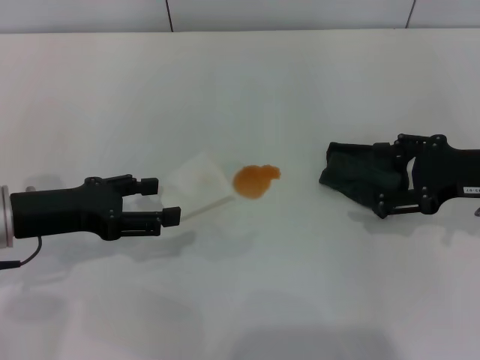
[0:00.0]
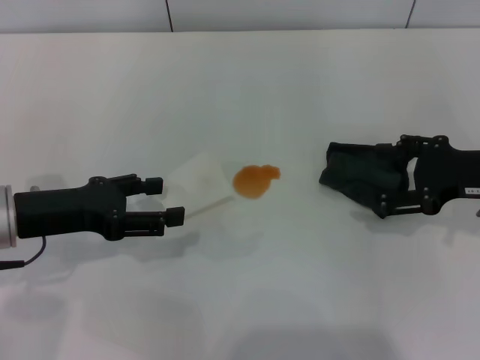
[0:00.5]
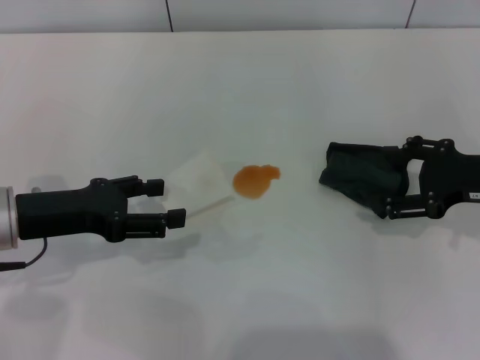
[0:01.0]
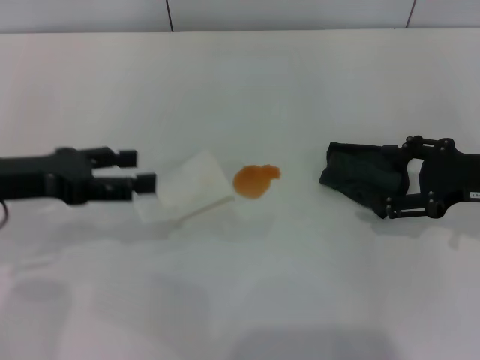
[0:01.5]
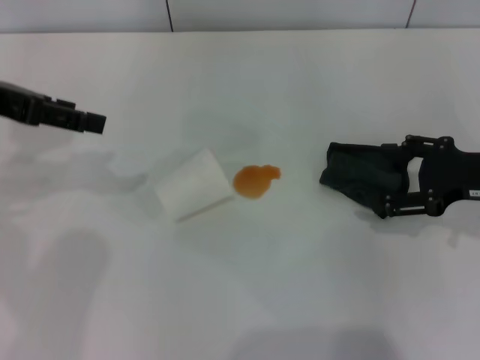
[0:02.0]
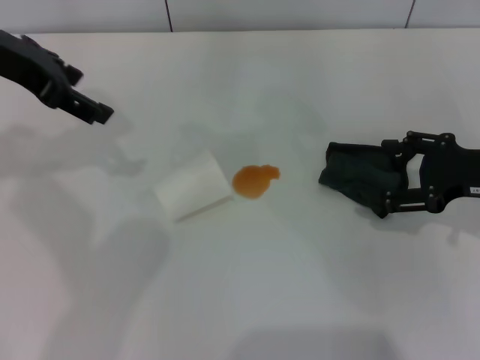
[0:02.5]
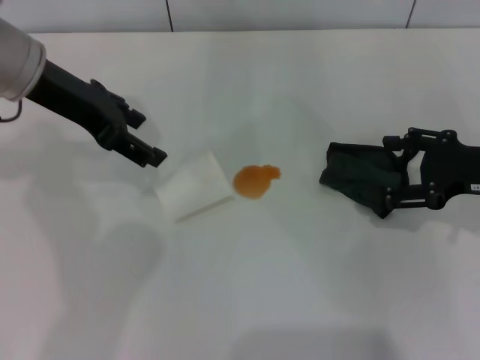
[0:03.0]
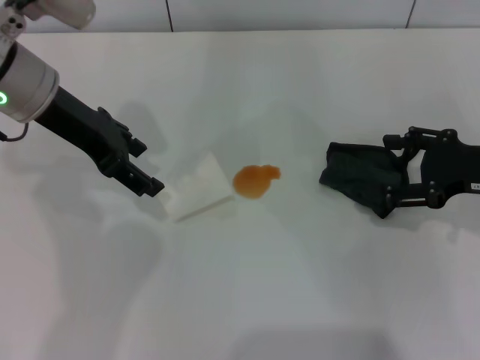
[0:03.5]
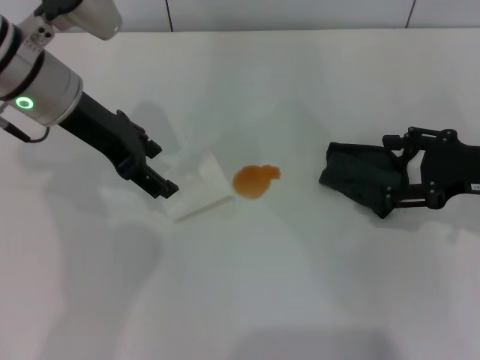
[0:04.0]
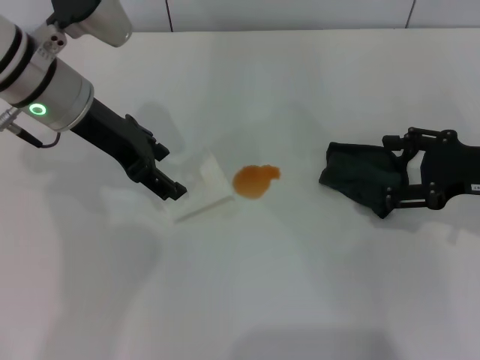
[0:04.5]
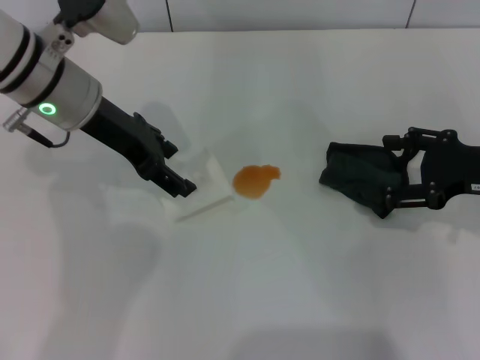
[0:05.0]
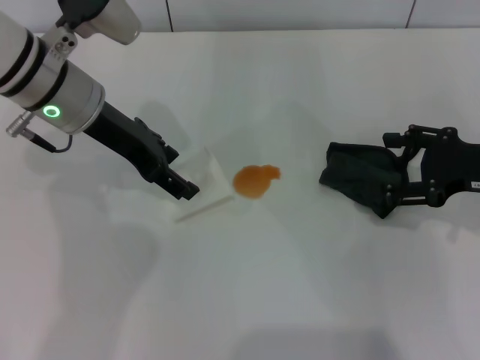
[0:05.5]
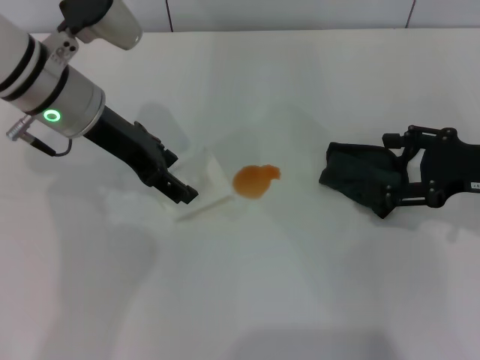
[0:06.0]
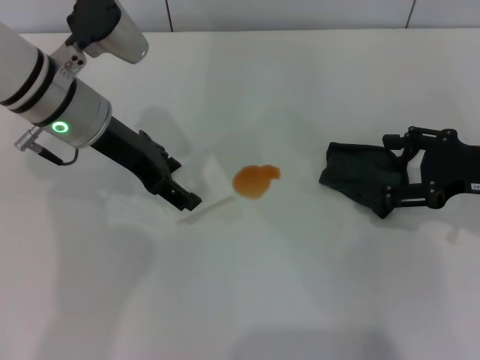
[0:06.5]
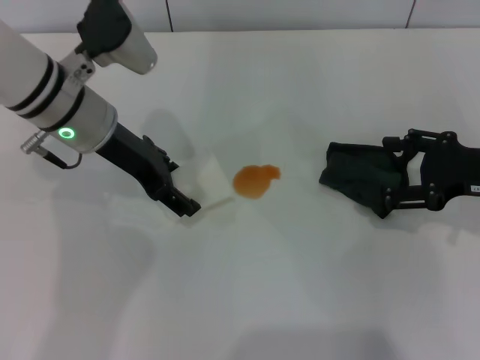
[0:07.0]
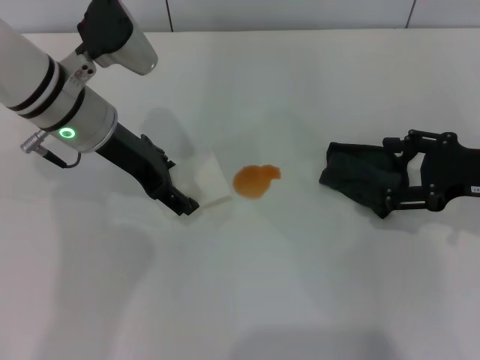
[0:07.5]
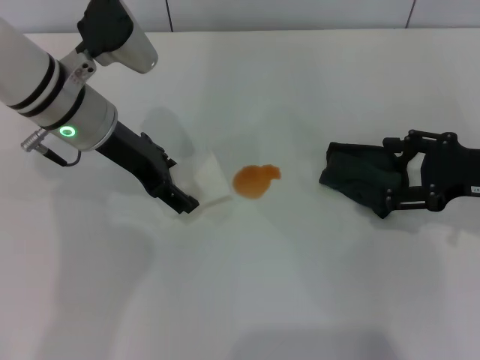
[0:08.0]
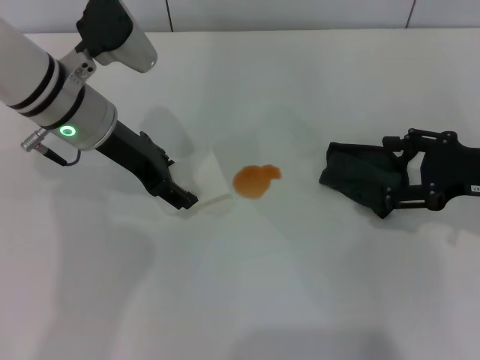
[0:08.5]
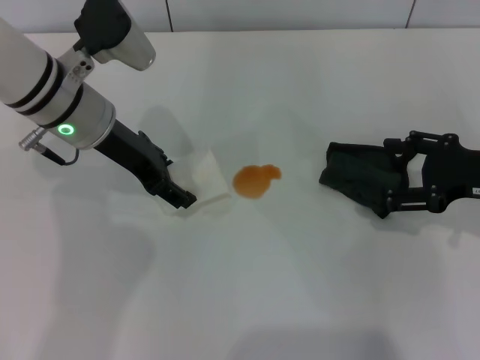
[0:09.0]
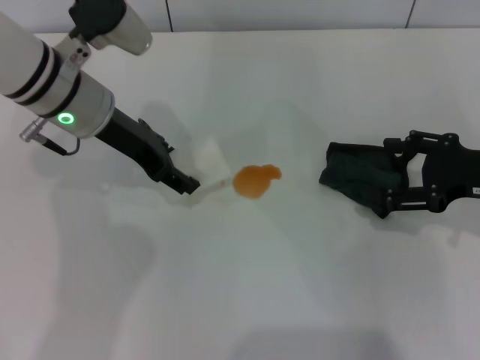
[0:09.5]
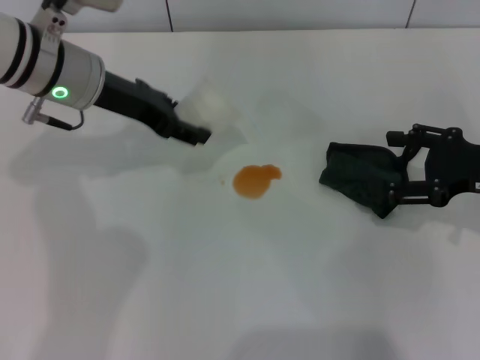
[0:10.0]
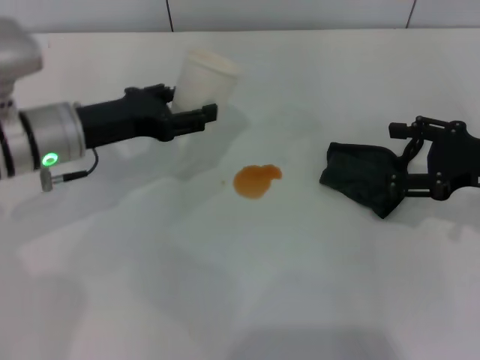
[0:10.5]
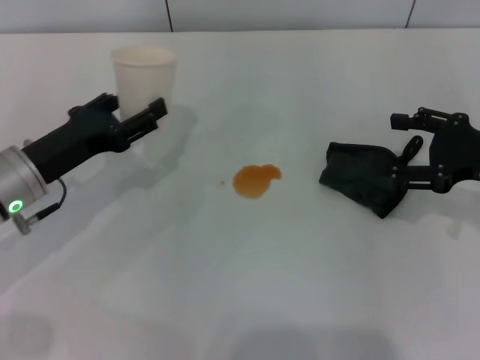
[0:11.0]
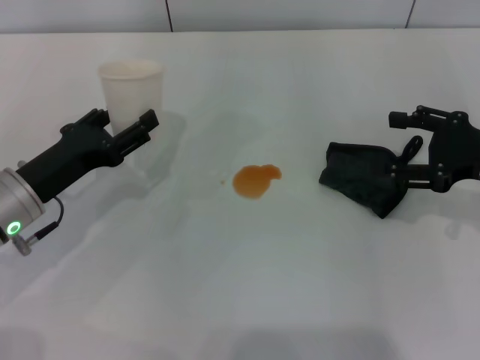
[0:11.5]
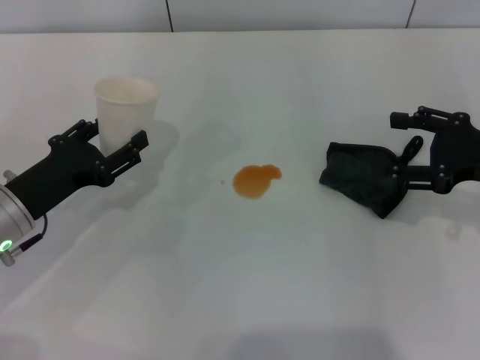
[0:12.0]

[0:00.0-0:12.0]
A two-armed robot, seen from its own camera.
Step, 0:00.0 to 0:08.5: Grasp the paper cup with the left gripper.
0:00.0 to 0:02.0: The left gripper goes roughly 15 cm upward and forward.
0:02.0 to 0:04.0: The left gripper goes about 10 cm to the right.
0:04.0 to 0:08.0: There are only small adjustments of the grippers.
0:08.0 to 0:10.0: The left gripper closes its fingers.
0:10.0 to 0:12.0: The left gripper is displaced backward, downward and to the left by about 20 cm.

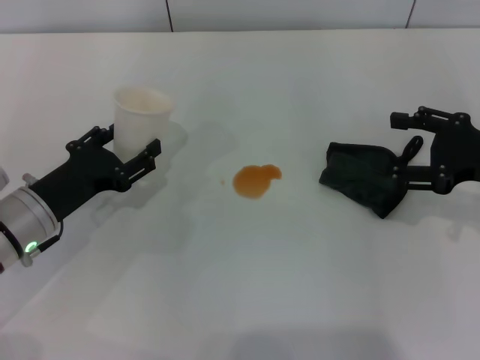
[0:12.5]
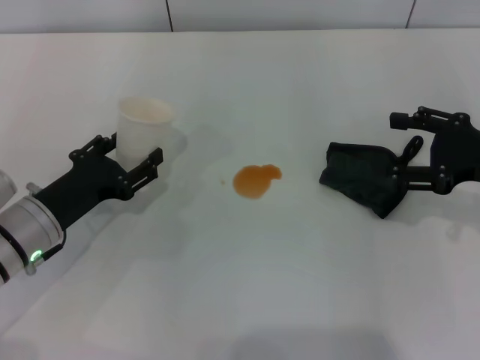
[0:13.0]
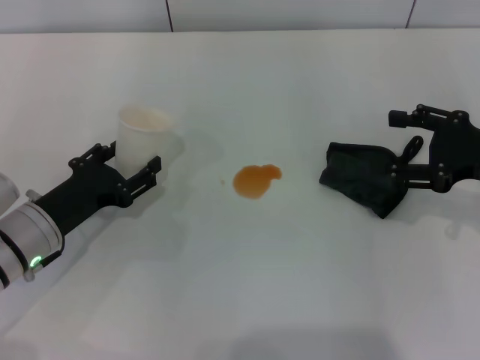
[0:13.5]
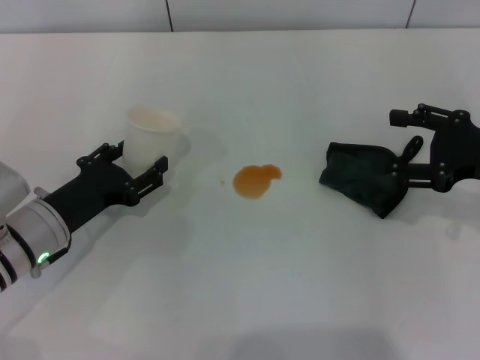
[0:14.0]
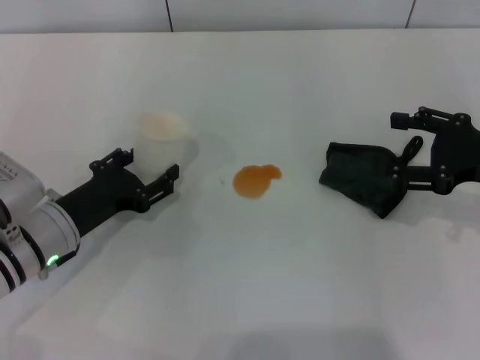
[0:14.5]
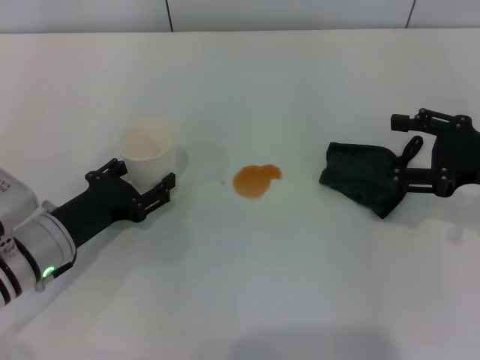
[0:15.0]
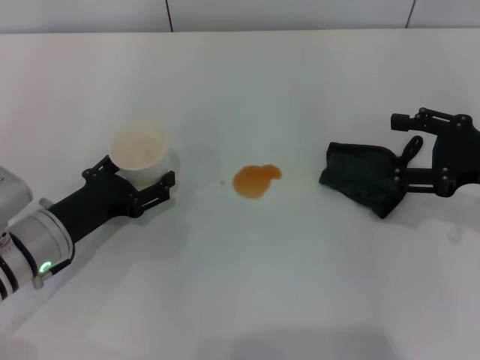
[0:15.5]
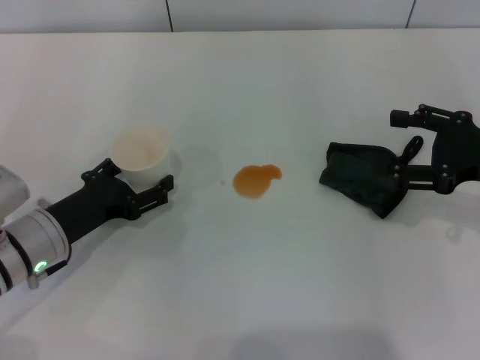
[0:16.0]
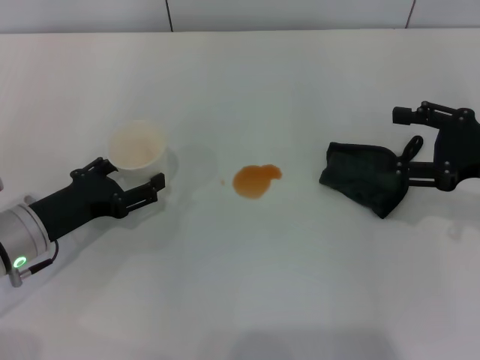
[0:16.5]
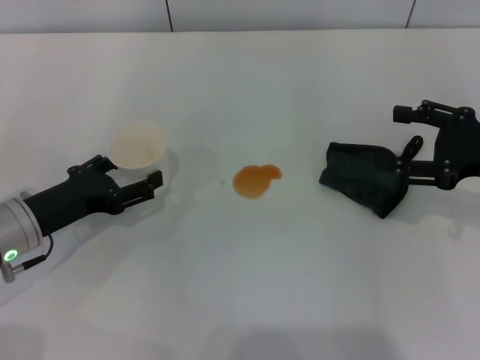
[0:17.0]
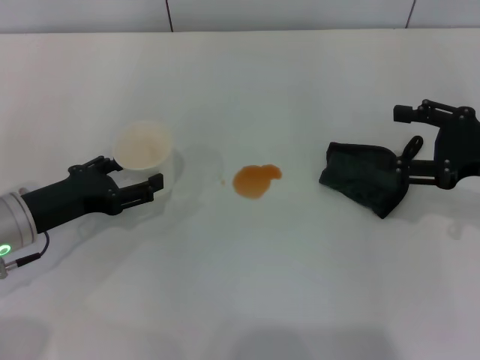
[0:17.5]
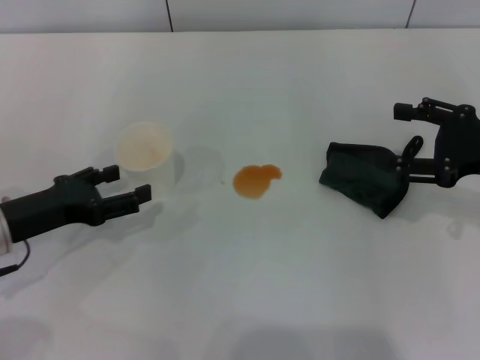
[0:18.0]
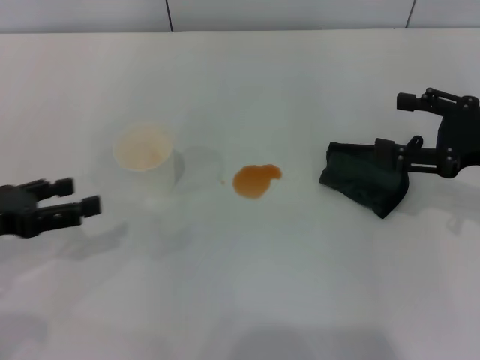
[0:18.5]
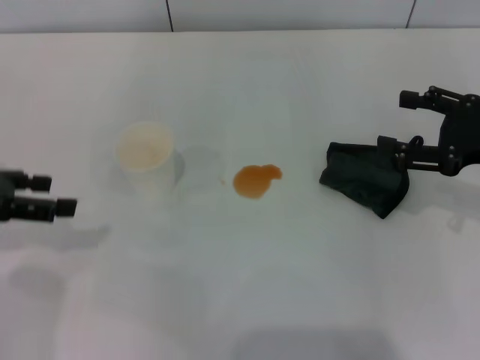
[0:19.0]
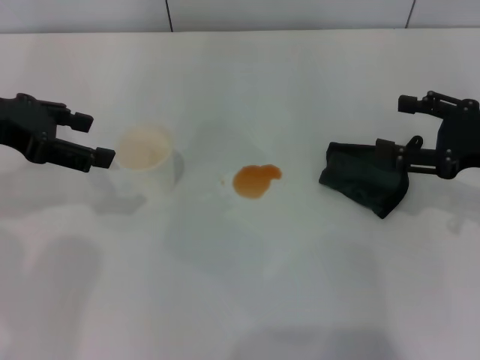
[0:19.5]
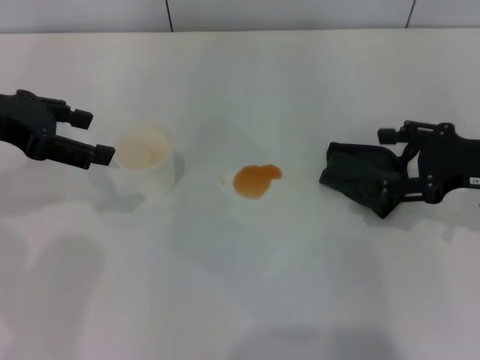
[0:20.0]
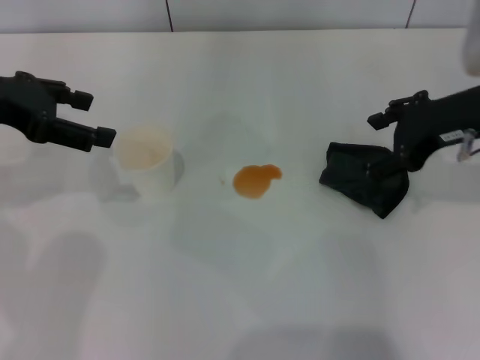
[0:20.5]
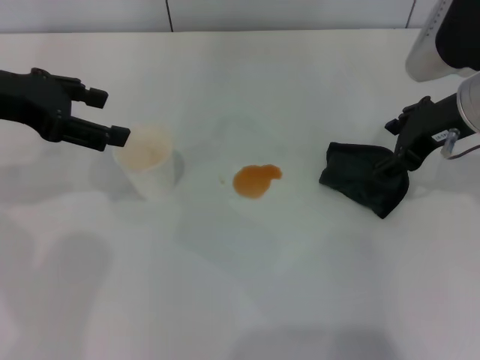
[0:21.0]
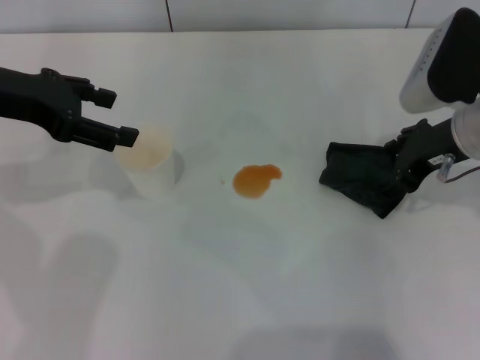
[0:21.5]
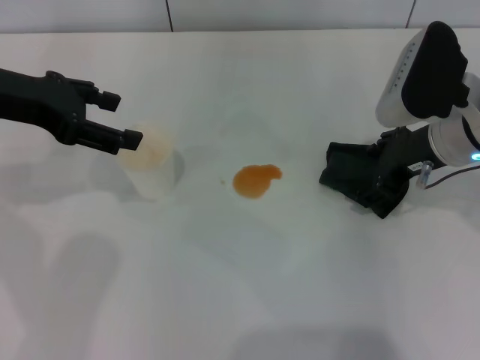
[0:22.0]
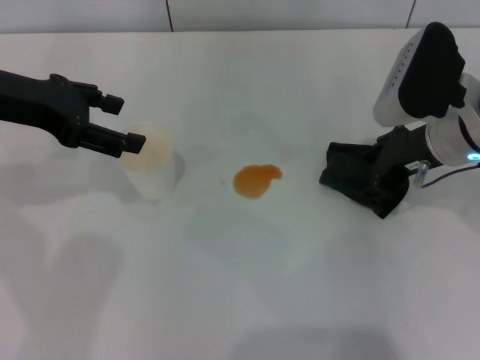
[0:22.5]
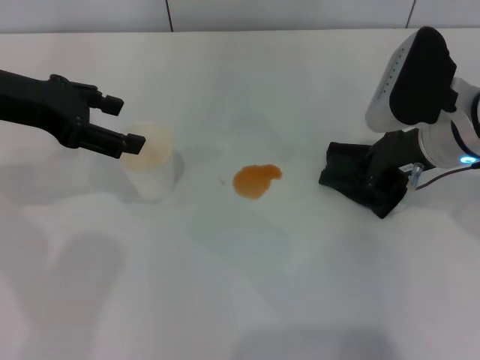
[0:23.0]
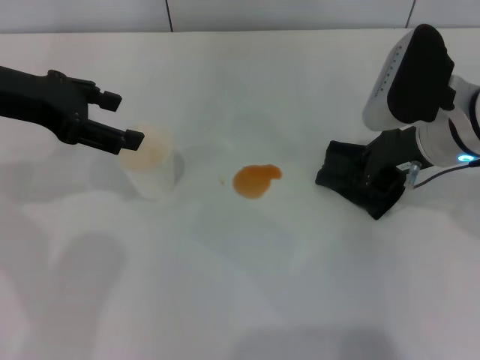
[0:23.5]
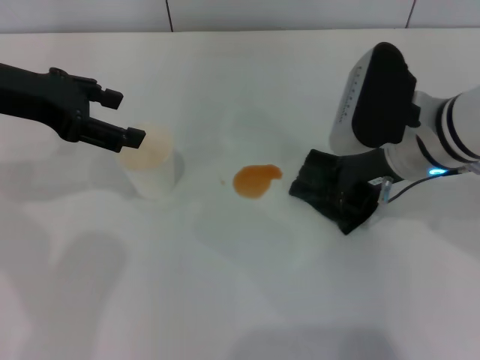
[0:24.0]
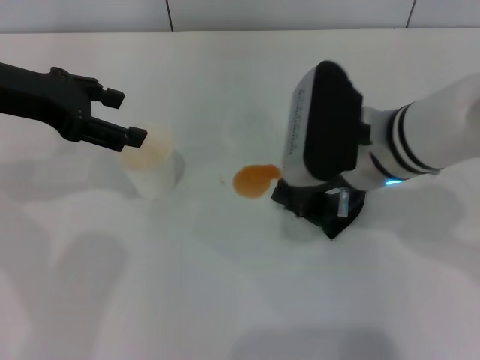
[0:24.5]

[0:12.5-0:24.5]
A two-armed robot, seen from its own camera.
Step, 0:12.5 to 0:18.0: Stand the paper cup upright with the left gripper.
Step, 0:18.5 to 0:23.5: Grasp the rag with the right gripper.
0:12.5 to 0:14.5: The grippers make only small movements.
0:14.5 to 0:16.5: The left gripper opens.
0:16.5 to 0:18.5: The left gripper heads upward and to the left, covering roughly 10 cm.
0:18.5 to 0:20.5: The right gripper heads to the left and upward, covering roughly 10 cm; the left gripper heads upward and forward, covering approximately 15 cm.
0:20.5 to 0:22.5: The right gripper heads downward, covering some 5 cm.
0:22.5 to 0:24.5: The right gripper is displaced to the left by some 10 cm, and closes.

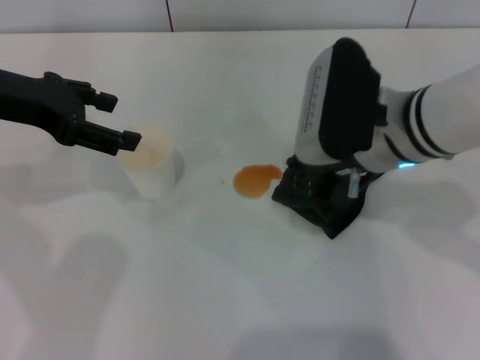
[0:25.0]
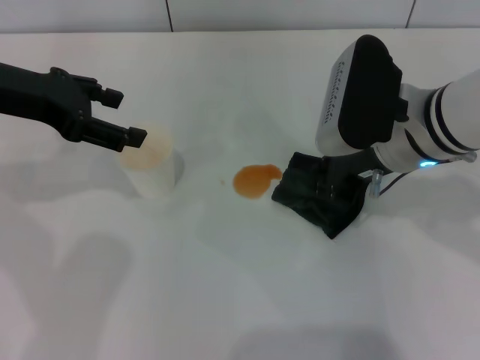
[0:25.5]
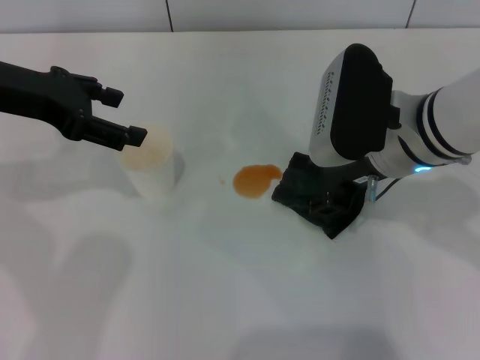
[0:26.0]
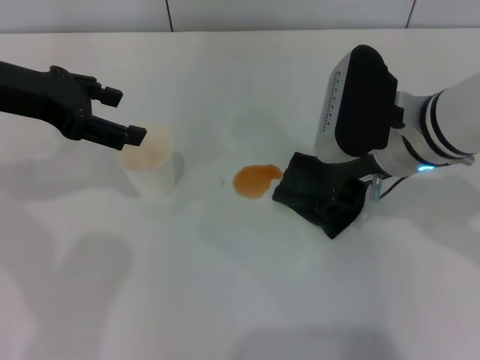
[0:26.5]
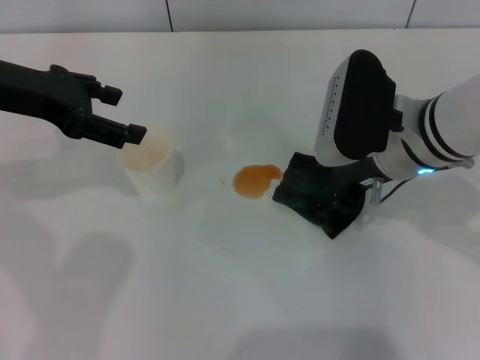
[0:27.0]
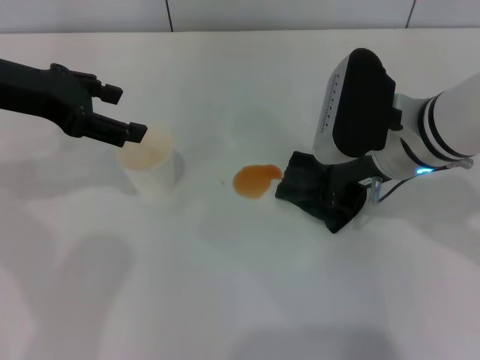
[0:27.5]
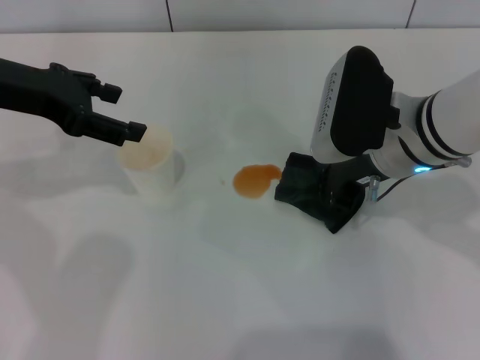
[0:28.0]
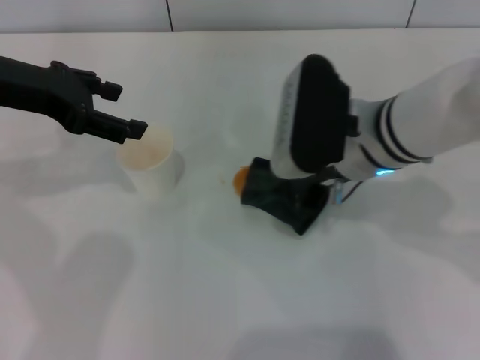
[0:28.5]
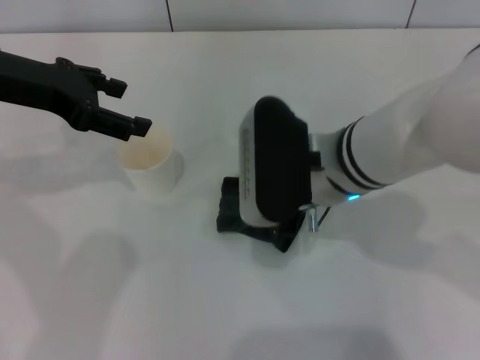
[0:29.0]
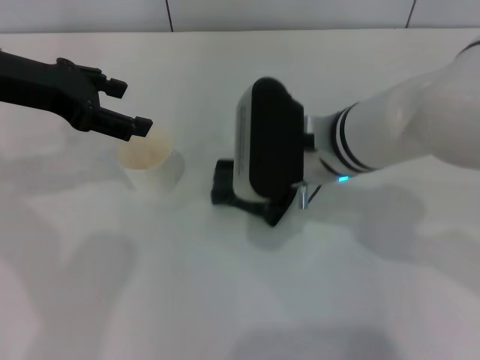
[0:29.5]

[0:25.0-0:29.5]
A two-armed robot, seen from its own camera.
0:25.0 to 0:27.0: The right gripper opens up.
0:27.0 to 0:29.5: The right gripper moves to the left, some 5 cm, and closes up.
